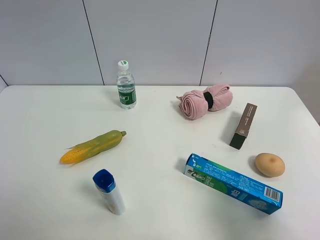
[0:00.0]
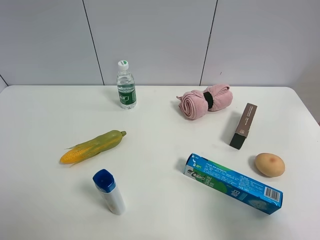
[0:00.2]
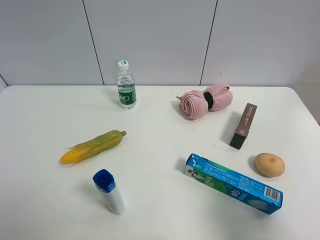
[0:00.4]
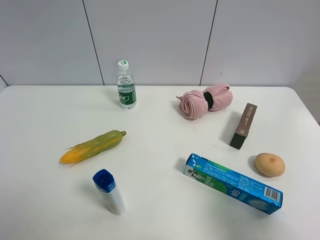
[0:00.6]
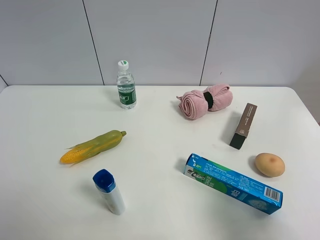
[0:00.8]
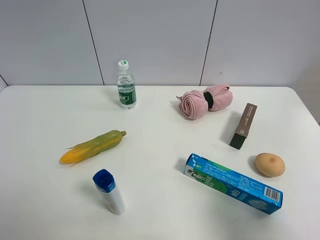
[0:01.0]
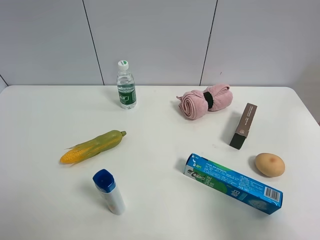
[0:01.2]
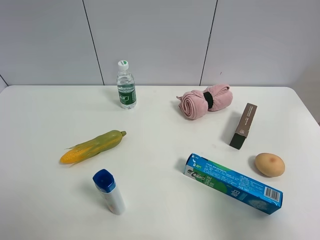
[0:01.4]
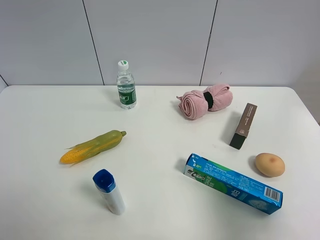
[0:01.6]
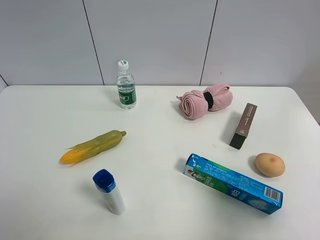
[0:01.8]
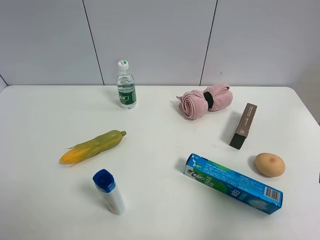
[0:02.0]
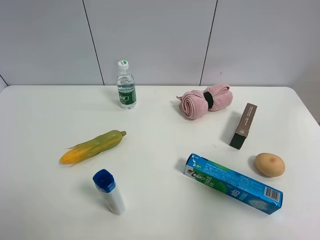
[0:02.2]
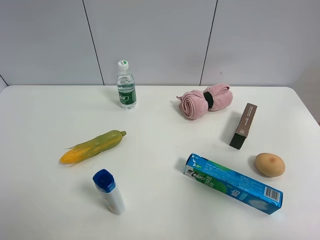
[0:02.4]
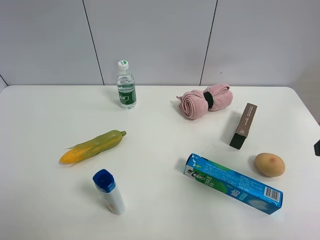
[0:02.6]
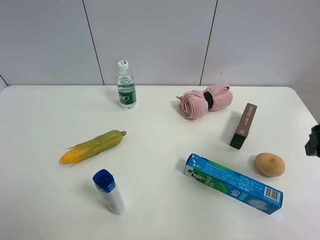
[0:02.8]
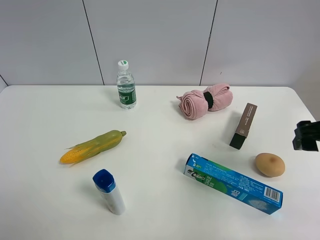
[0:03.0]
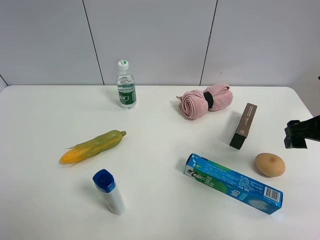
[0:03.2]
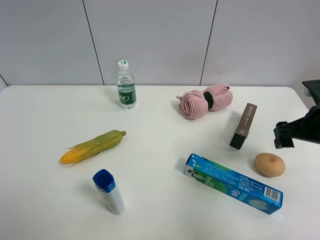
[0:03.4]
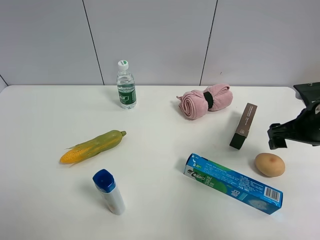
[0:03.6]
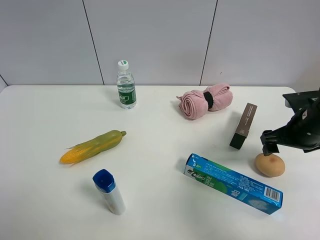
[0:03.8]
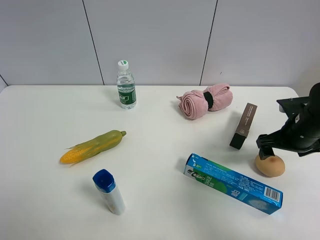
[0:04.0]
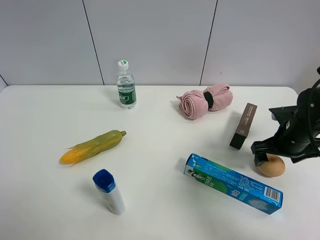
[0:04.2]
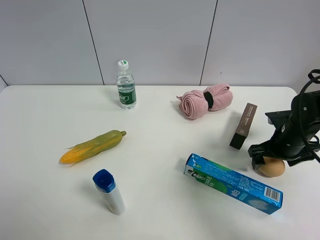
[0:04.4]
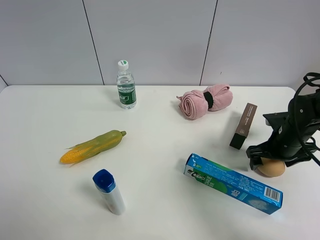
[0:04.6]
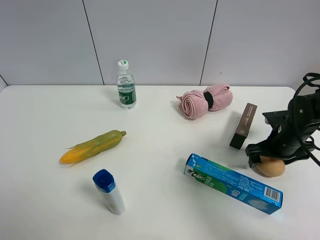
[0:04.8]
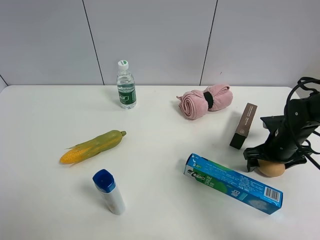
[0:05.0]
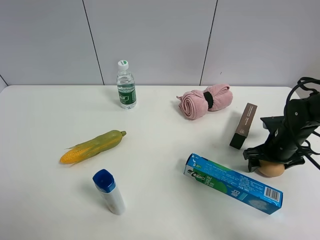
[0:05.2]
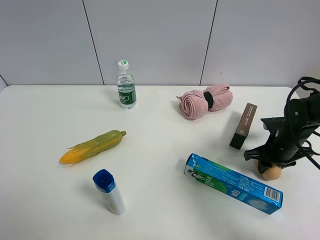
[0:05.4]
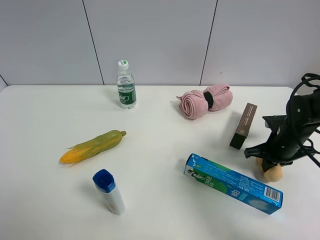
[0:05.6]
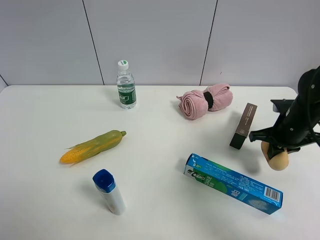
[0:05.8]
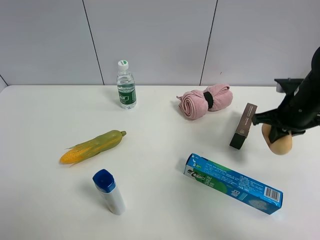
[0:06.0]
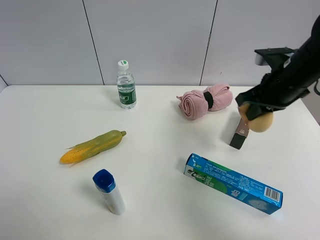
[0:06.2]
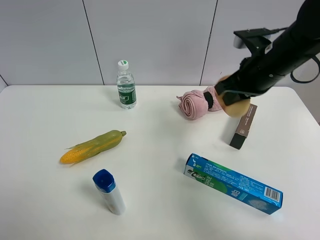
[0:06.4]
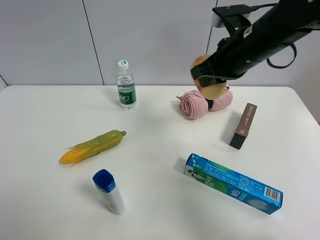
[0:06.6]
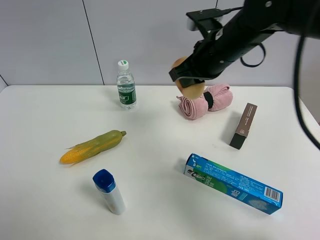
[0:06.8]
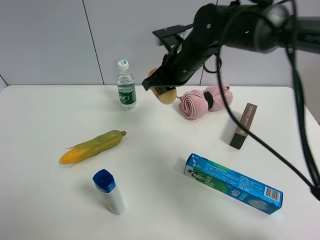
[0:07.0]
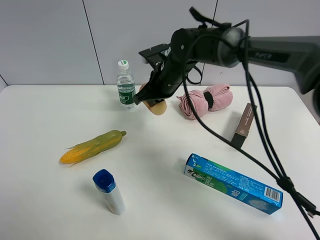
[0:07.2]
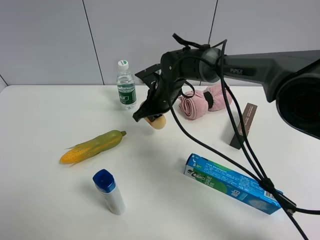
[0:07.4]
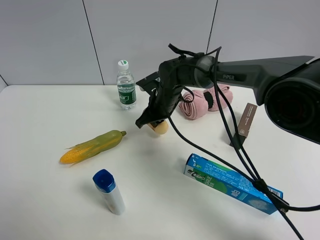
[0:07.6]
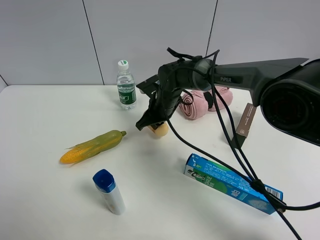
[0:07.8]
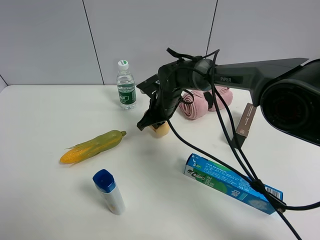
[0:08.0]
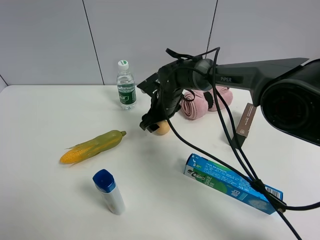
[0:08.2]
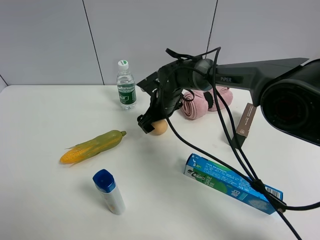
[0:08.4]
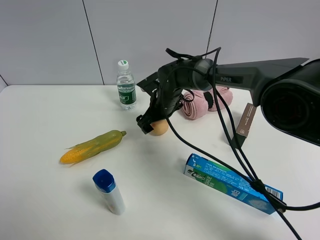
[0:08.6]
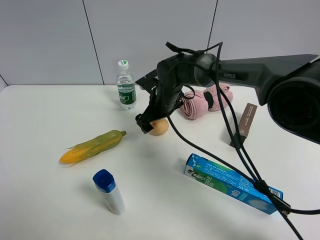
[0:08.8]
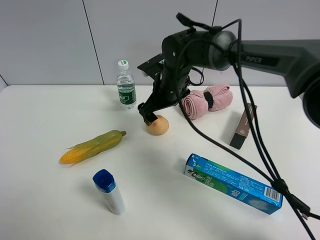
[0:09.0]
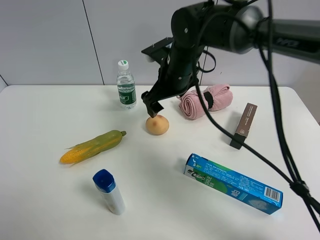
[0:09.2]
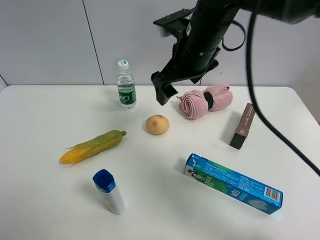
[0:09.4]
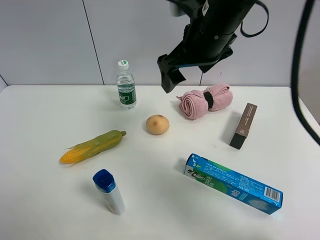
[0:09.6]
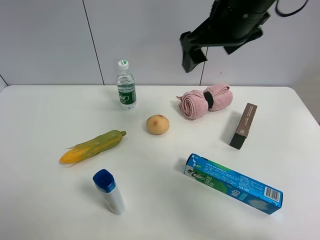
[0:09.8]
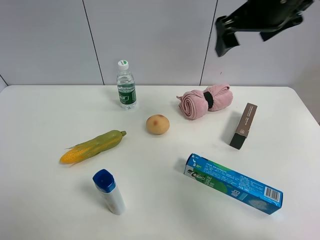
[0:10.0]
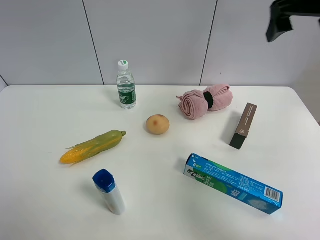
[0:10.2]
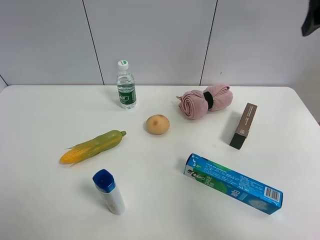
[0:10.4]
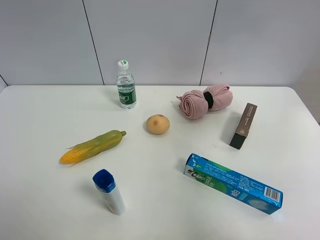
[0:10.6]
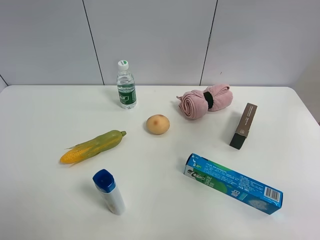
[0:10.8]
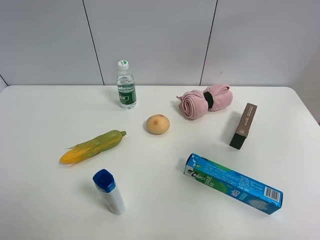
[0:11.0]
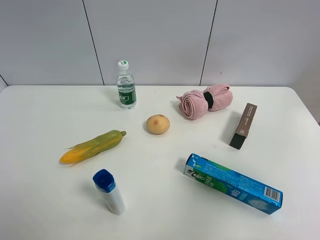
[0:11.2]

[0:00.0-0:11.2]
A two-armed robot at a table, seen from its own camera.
Task of the whole recording: the gripper move the object.
Step, 0:00.0 to 0:05.6: Grasp the egg yolk pastry with the right gripper.
Step, 0:05.8 to 0:08.4: Place the egg yolk pastry on the table with the right gripper.
0:01.6 to 0:03.2: The right gripper is displaced forward by about 20 cm.
0:03.2 to 0:04.8: The right gripper heads downward and forward, covering approximately 15 cm.
0:04.8 to 0:06.4: The right gripper is displaced upward and to the left by approximately 20 cm, and closes its fingers.
0:06.4 to 0:08.0: The right gripper travels to the left, downward and forward by some 25 cm.
0:08.0 to 0:09.6: The right gripper travels upward and backward by roughly 25 cm, and opens up.
0:09.6 to 0:11.2: The right gripper is displaced backward and to the right by some 35 cm.

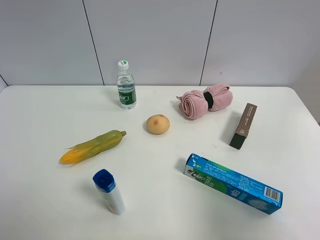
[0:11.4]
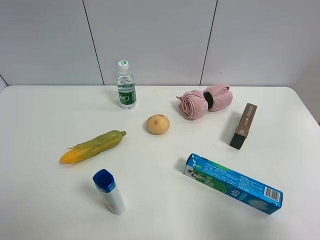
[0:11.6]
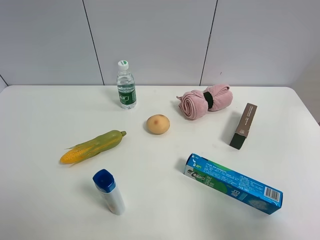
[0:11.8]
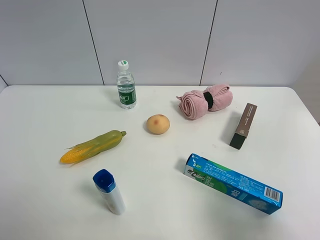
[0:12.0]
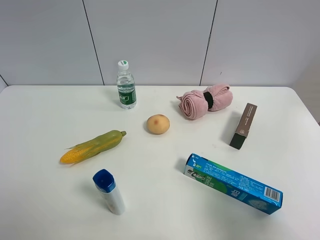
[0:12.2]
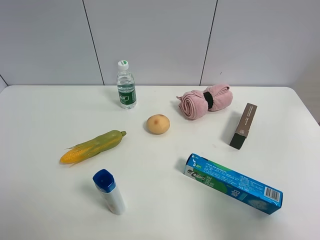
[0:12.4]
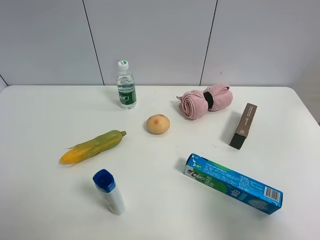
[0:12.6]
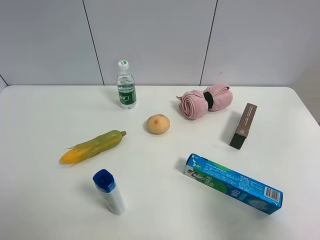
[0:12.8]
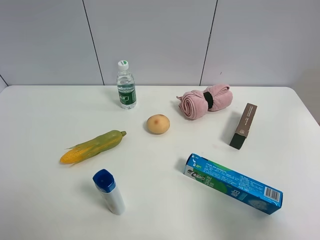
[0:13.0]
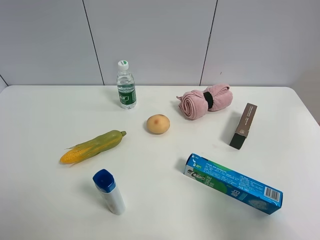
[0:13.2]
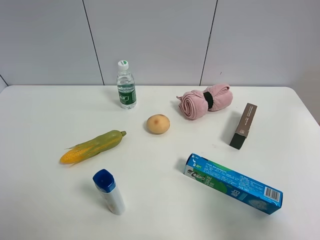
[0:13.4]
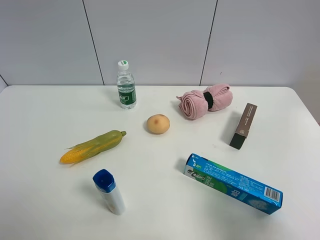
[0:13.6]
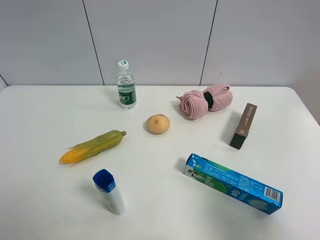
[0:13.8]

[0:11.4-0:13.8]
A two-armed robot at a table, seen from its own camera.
Task of the whole recording: the gripper move the object.
0:12.6 to 0:13.8: The two grippers keep their place.

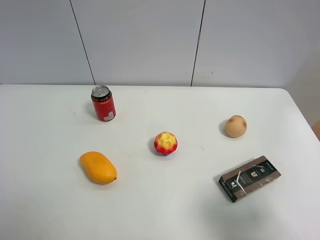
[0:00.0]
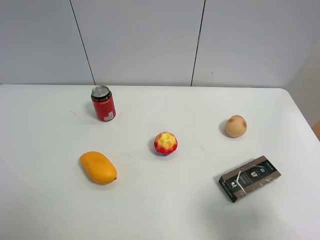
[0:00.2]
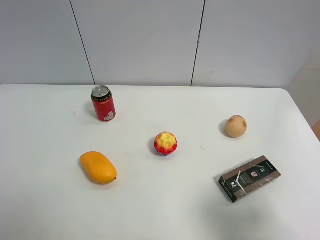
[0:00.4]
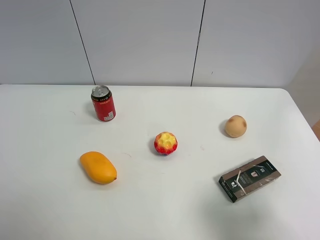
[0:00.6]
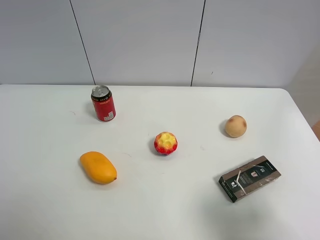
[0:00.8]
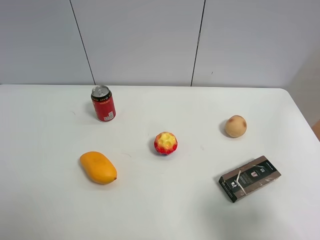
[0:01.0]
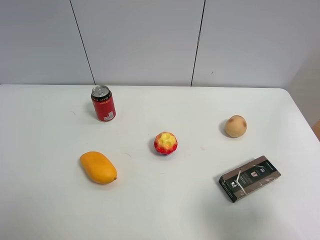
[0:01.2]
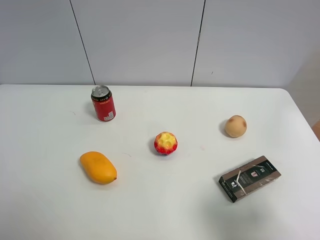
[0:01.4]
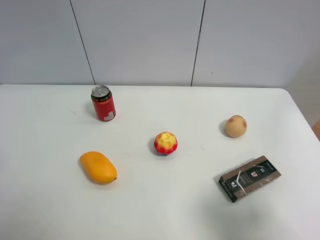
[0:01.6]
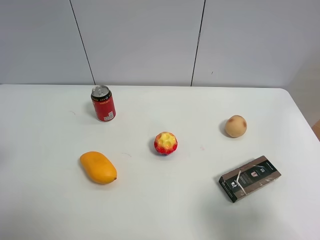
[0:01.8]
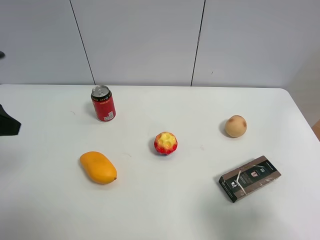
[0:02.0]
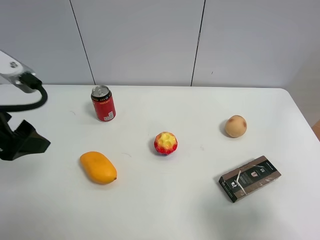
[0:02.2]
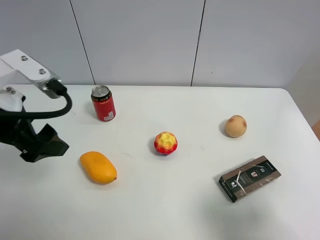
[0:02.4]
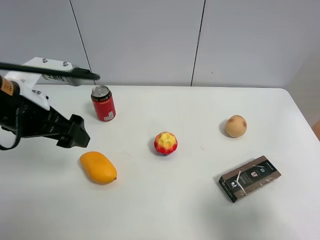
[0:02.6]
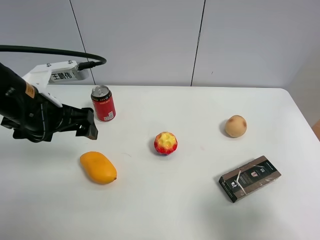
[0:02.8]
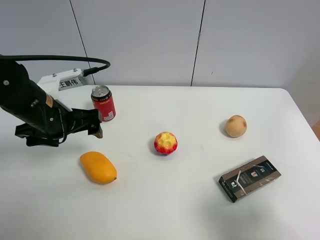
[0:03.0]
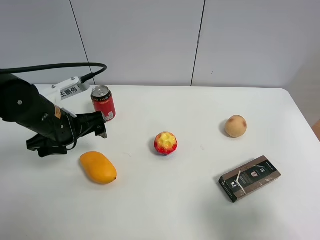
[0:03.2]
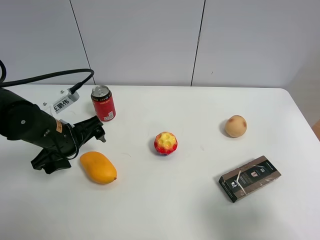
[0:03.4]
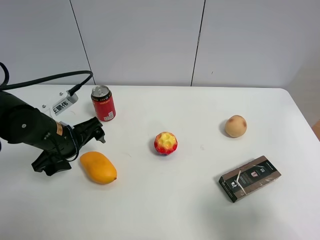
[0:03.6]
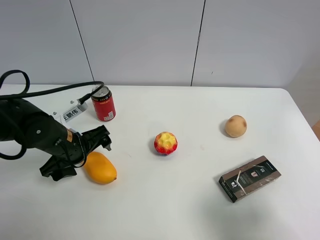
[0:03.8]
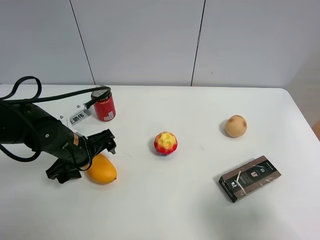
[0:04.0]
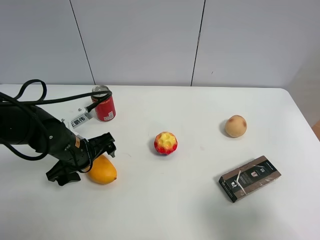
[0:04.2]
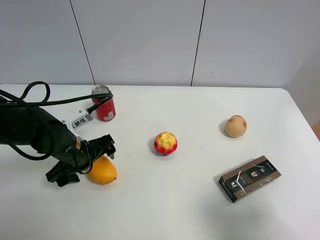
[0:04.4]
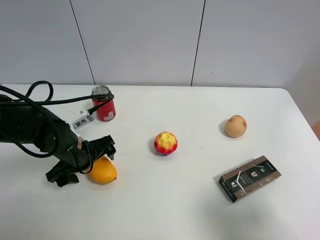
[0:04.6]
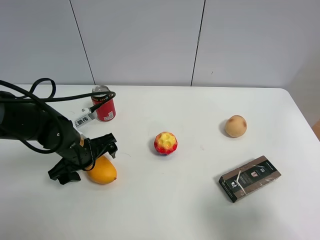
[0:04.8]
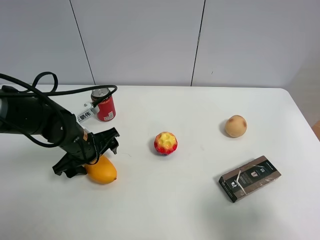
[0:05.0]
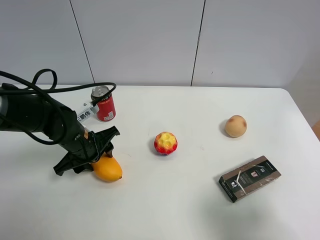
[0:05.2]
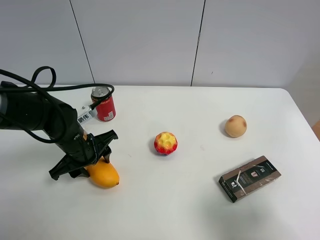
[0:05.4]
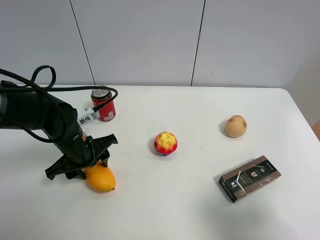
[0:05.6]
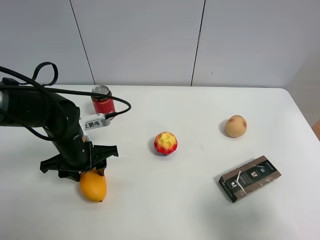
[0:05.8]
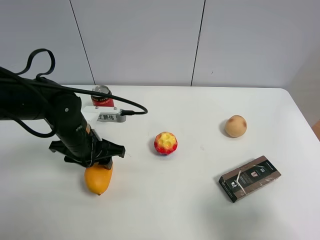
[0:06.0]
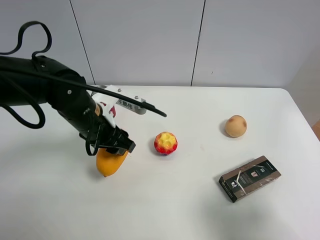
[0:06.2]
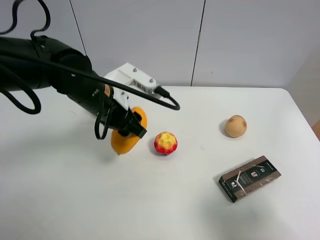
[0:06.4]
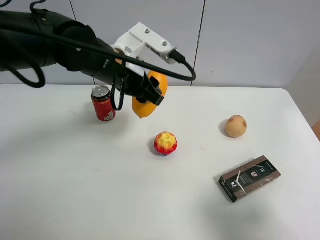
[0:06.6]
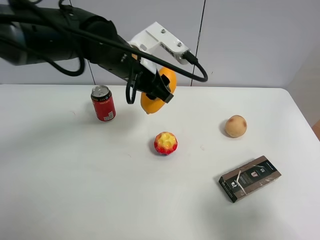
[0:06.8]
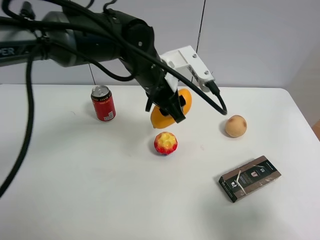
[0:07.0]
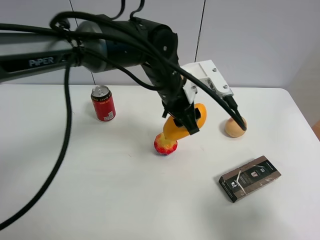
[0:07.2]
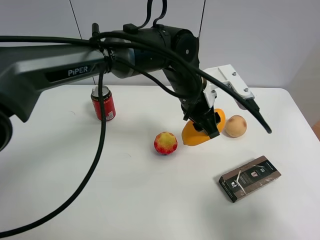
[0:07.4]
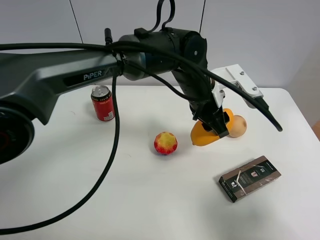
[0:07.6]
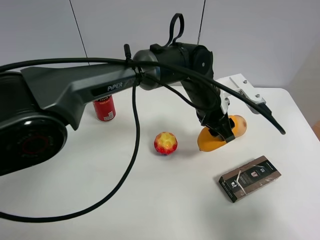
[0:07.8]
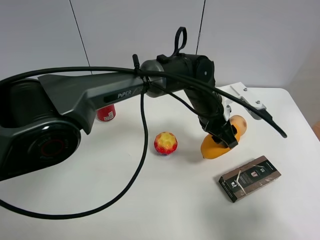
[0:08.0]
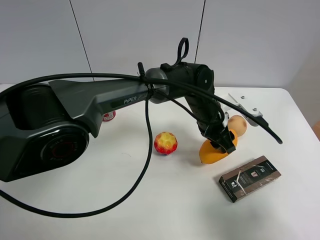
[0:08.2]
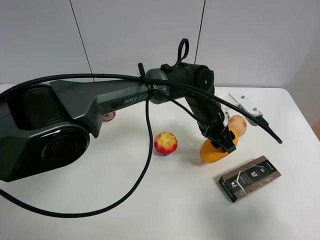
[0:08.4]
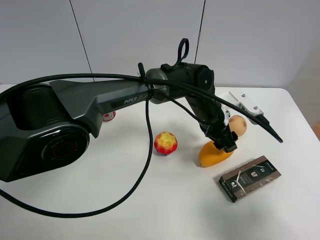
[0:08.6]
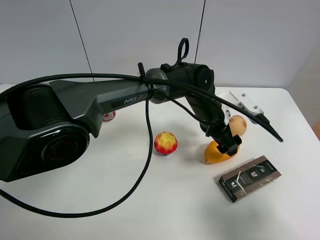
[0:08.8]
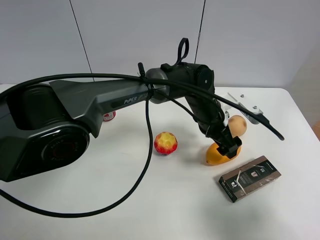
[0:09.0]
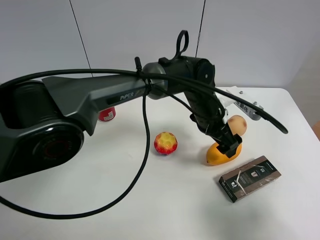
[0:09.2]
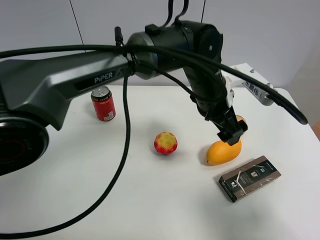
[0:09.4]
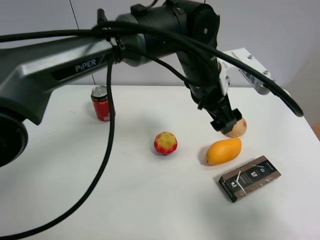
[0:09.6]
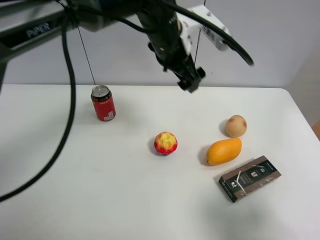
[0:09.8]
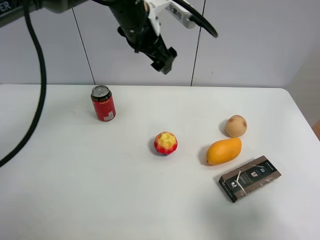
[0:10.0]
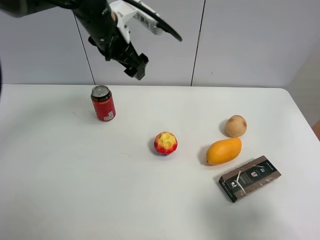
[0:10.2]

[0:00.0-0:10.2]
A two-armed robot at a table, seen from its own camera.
Task of the whole recording: the gripper move the object.
Step, 0:00.0 to 0:05.2: Grasp the mango with the left gripper.
Step, 0:05.4 to 0:08.8: Place the mango on the table with the left gripper.
0:01.4 to 0:03.0: The left gripper shifts some 25 cm forward, to the right and downward.
0:03.0 to 0:04.4: The left gripper heads downward, covering approximately 10 cm.
0:04.4 to 0:05.8: The left gripper closes up.
0:05.8 to 0:07.2: The left gripper shifts roughly 20 cm to the right and upward.
0:07.2 to 0:08.8: The left gripper is displaced to the right and downward by approximately 10 cm, and opens its fingers.
0:08.8 to 0:10.2: The left gripper moves to the left and upward, approximately 25 cm.
